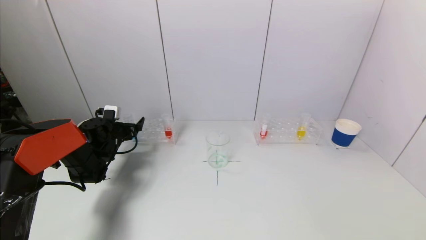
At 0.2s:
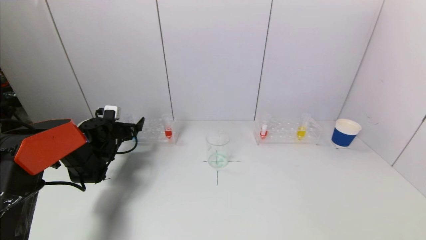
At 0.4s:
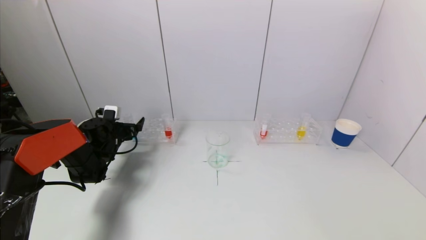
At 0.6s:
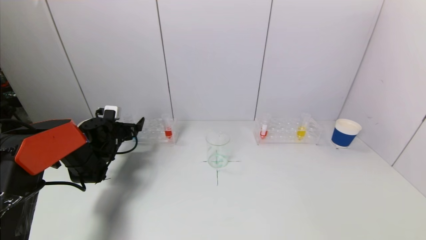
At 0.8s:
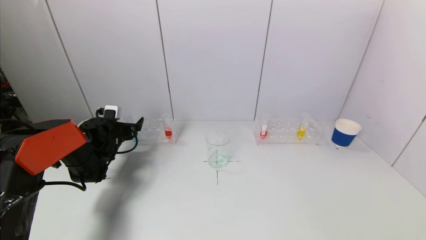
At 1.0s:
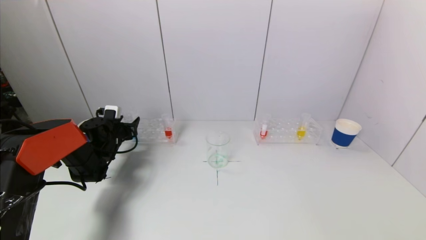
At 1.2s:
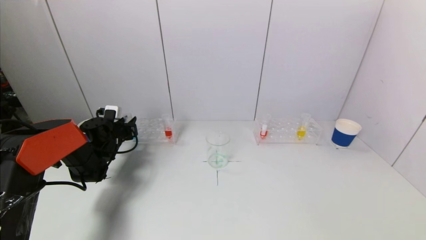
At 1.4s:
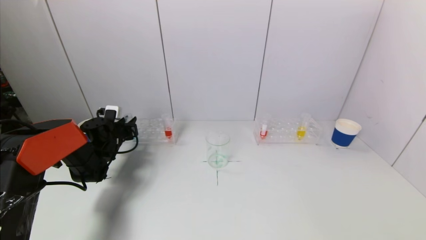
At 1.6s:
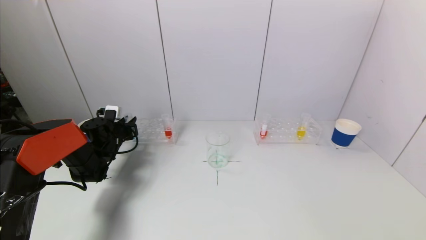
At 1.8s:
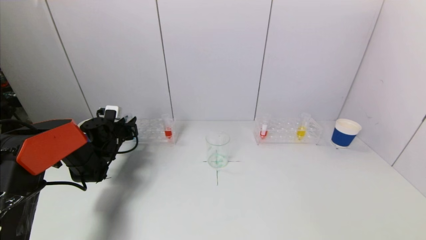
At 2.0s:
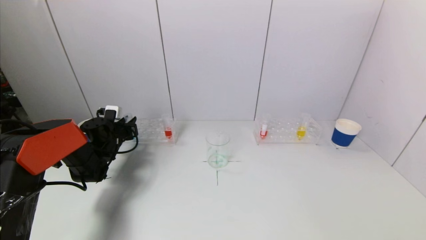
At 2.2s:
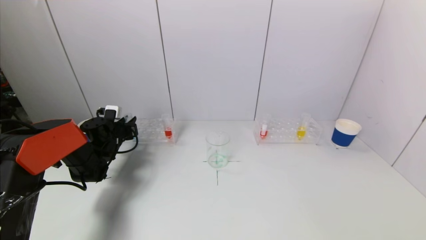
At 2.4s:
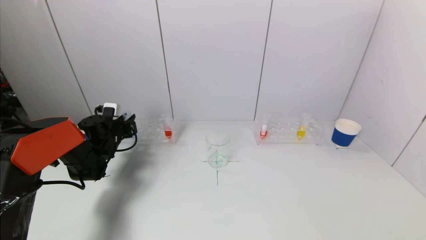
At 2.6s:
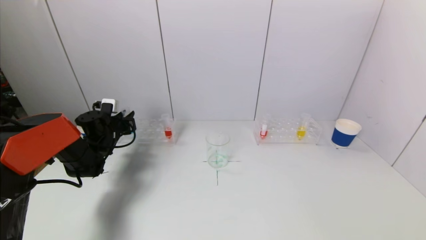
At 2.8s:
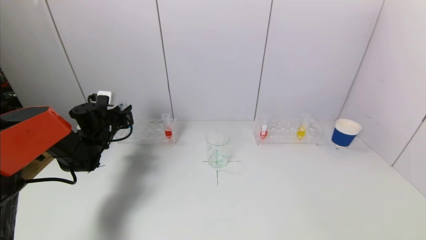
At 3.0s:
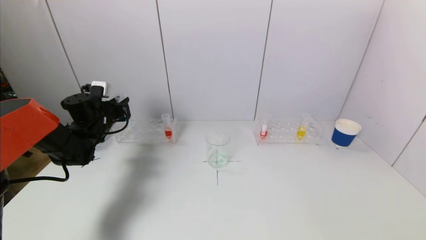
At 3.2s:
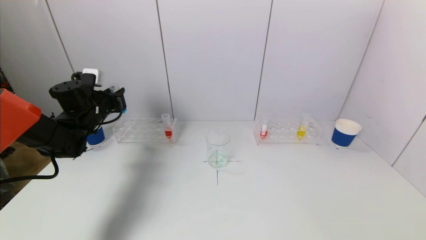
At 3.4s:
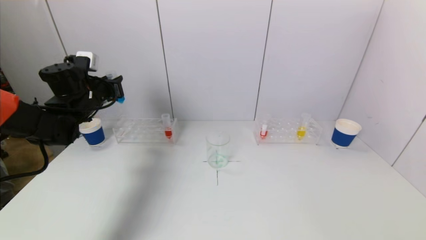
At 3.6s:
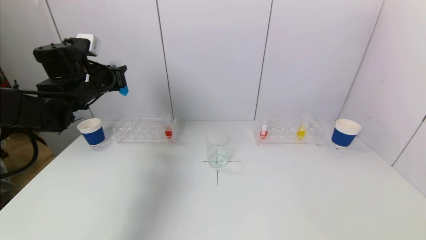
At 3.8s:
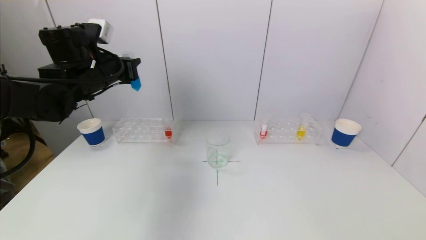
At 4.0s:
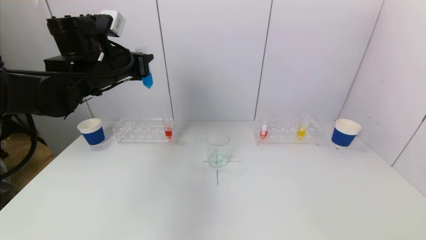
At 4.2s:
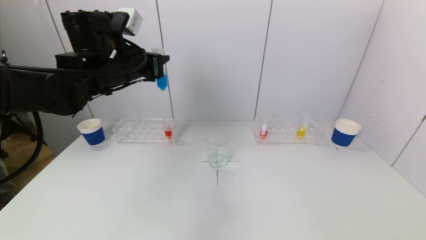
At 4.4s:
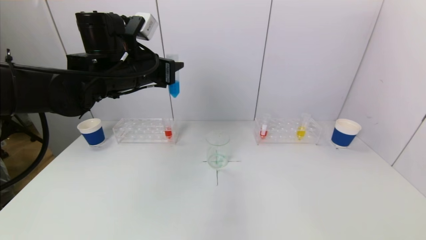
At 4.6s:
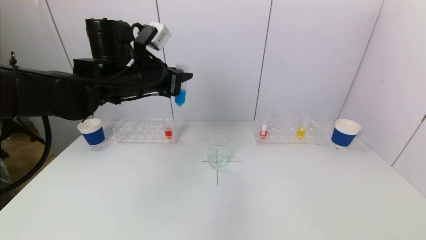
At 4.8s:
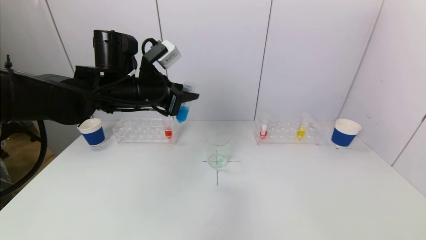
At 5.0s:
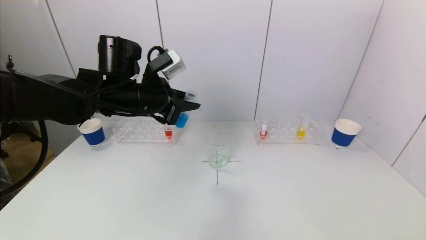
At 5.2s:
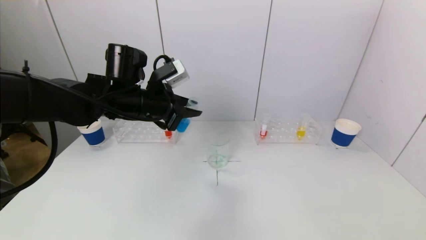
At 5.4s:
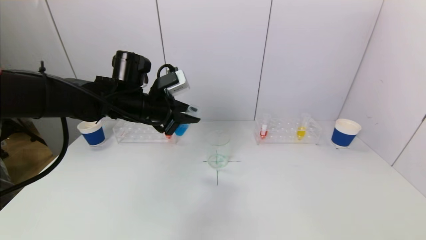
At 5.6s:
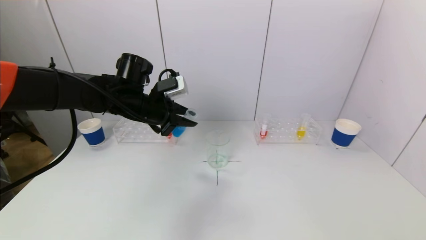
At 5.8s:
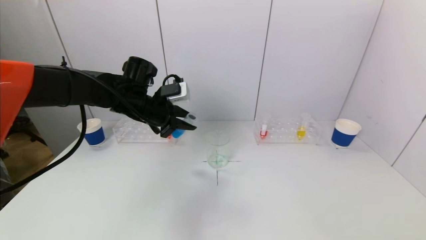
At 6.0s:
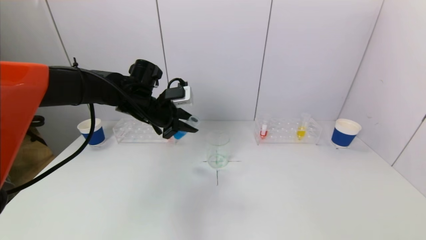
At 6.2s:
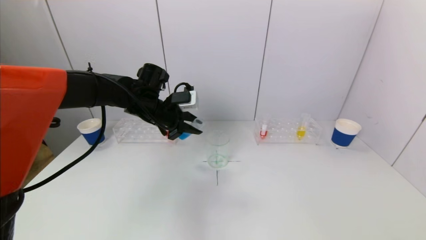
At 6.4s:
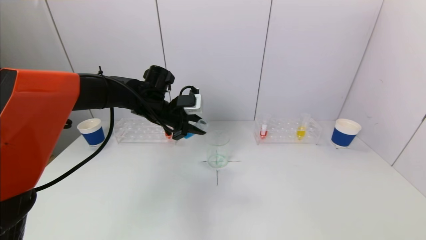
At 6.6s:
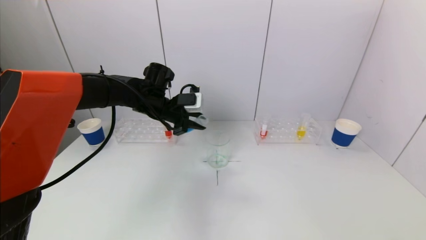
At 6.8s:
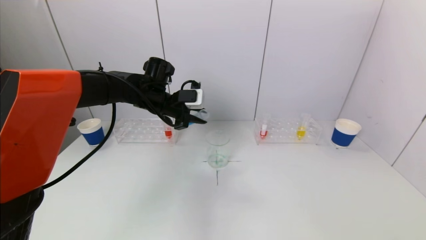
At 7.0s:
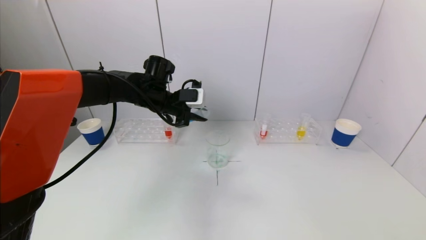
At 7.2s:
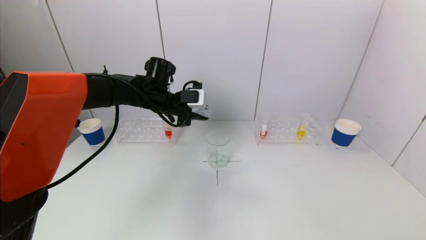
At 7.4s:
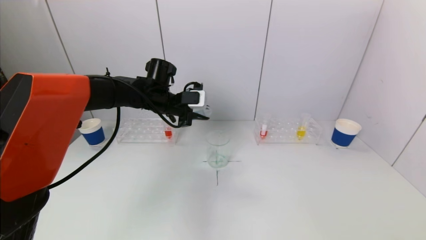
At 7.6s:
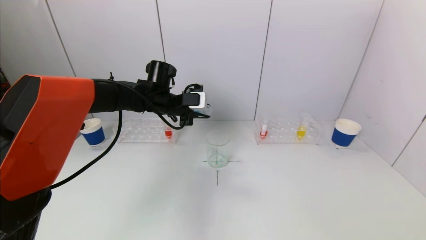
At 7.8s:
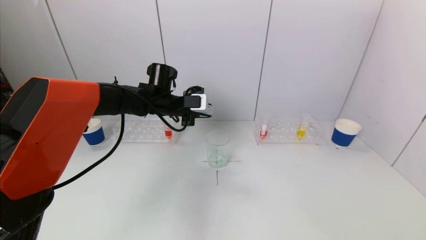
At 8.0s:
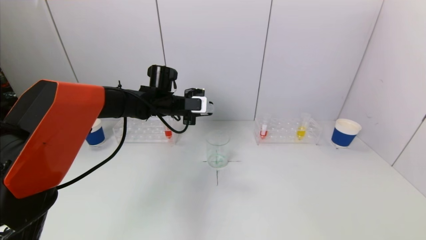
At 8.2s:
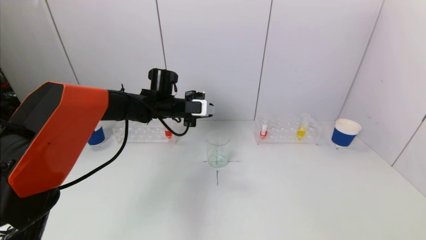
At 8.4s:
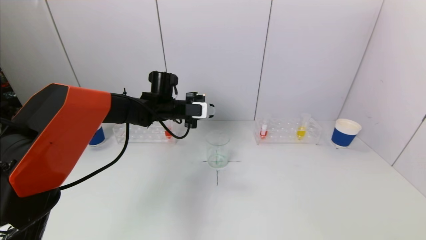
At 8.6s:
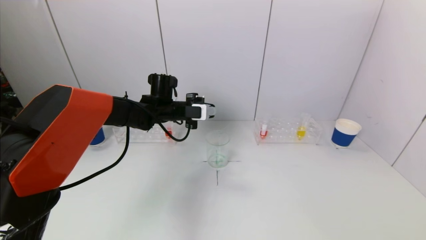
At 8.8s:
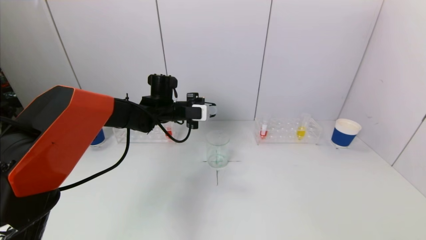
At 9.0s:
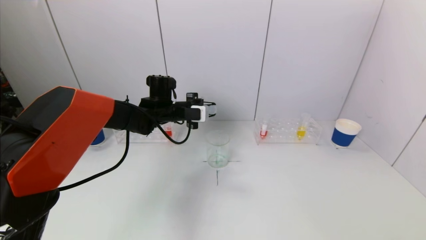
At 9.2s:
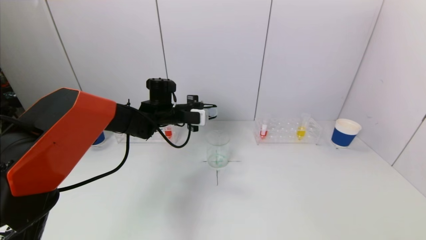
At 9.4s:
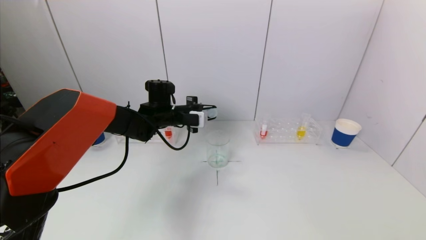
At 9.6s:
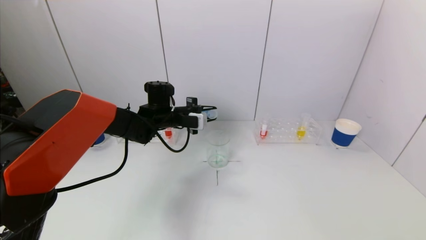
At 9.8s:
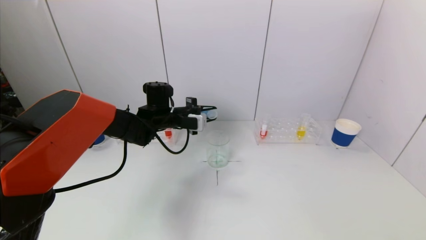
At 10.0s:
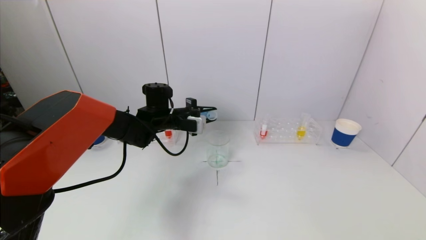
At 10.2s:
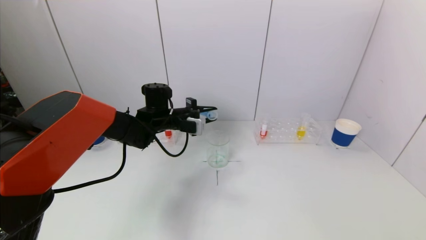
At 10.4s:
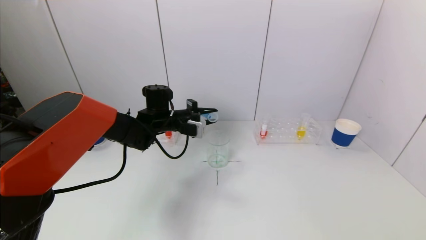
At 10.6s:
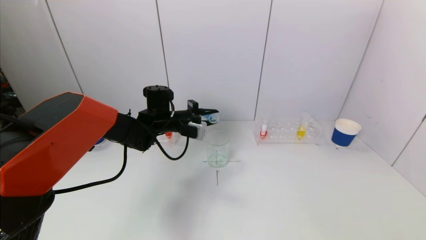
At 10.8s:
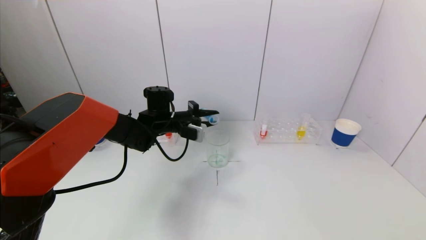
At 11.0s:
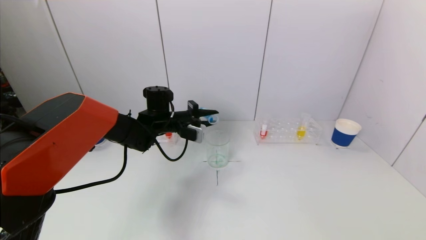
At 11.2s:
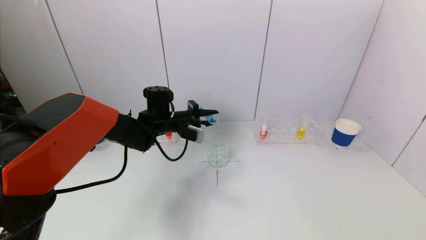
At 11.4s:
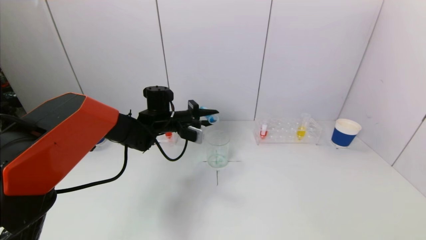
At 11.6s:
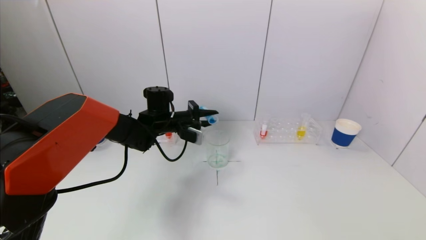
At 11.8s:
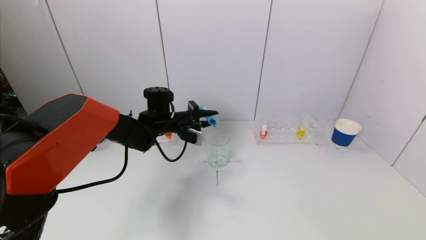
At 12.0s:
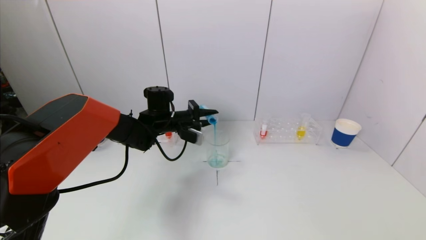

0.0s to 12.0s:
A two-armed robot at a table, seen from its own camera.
Task of the whole recording: pick up a test tube with pigment on left test tube rack and a test tube with pigment on right test tube rack by grippers and pour them into the beaker.
0.0s to 1.6s: The left gripper closes up.
1.6s to 3.0s: The left gripper goes some 10 cm upward.
3.0s to 4.4s: The left gripper heads upward, to the right and backward, covering about 25 cm.
4.4s to 6.0s: The left gripper is displaced downward by some 10 cm.
6.0s to 7.6s: The left gripper ends up approximately 5 cm from where it was.
7.6s to 9.0s: There are only small adjustments of the grippers.
9.0s to 10.4s: The grippers make only small movements.
10.4s to 12.0s: The grippers move only a little.

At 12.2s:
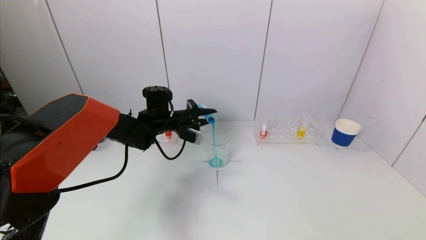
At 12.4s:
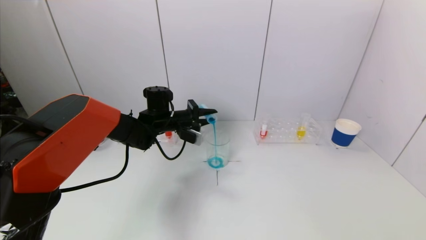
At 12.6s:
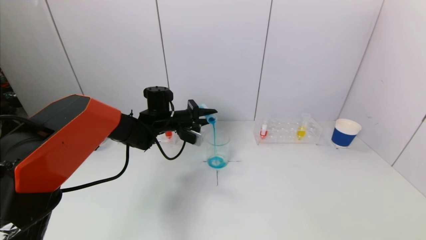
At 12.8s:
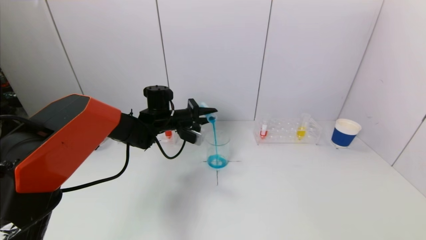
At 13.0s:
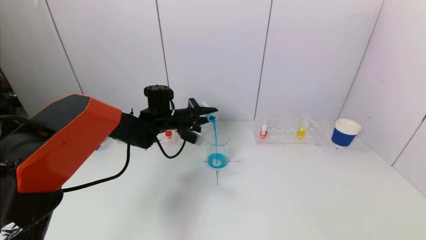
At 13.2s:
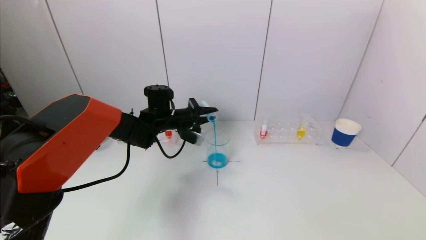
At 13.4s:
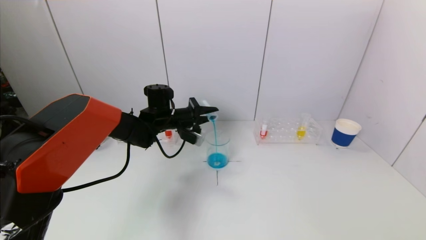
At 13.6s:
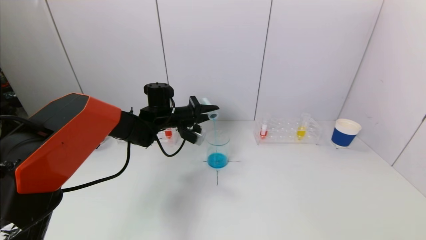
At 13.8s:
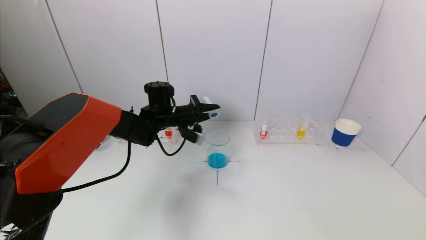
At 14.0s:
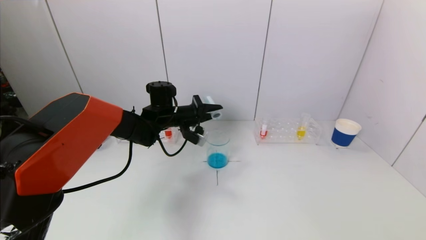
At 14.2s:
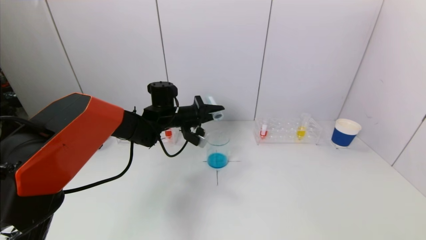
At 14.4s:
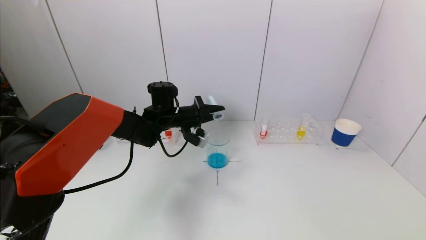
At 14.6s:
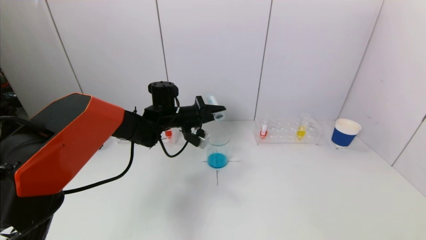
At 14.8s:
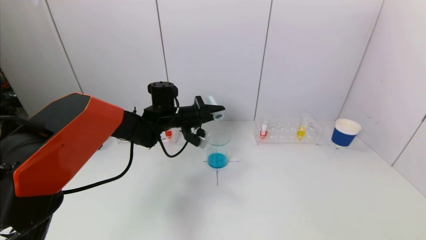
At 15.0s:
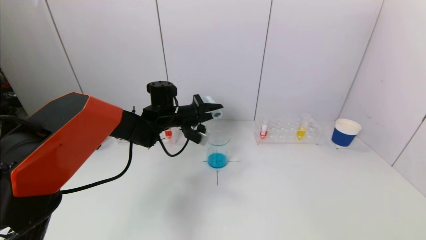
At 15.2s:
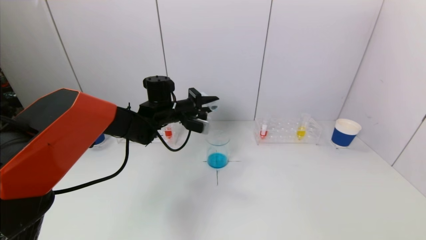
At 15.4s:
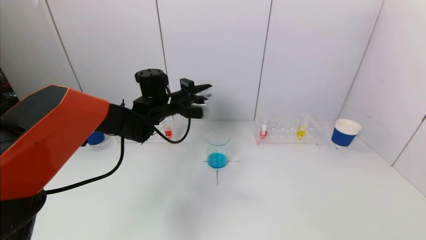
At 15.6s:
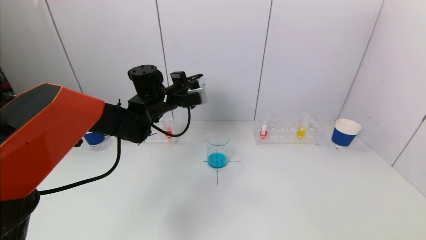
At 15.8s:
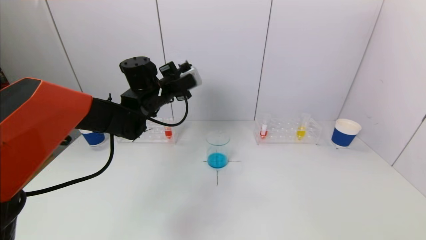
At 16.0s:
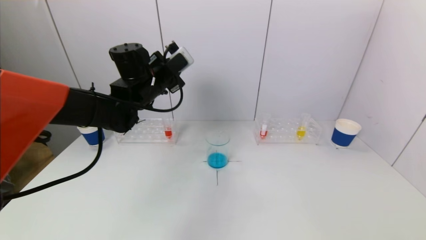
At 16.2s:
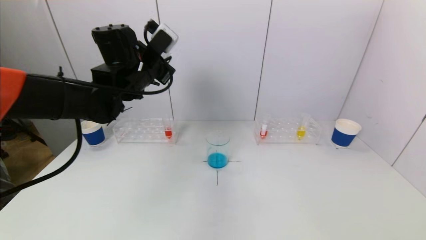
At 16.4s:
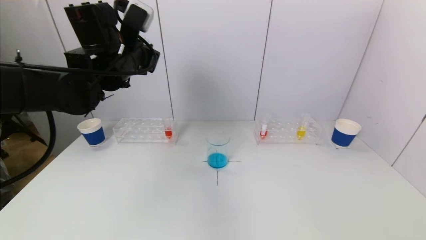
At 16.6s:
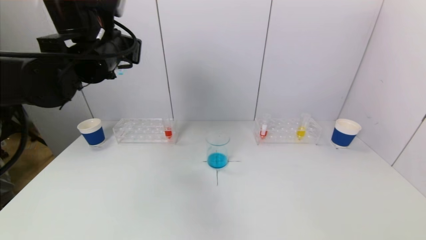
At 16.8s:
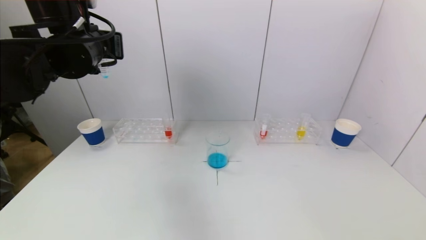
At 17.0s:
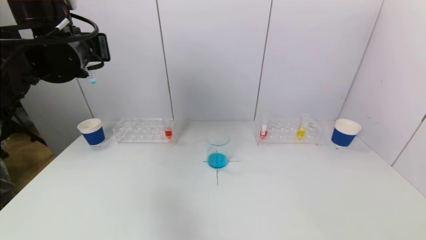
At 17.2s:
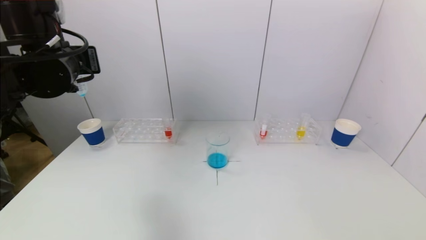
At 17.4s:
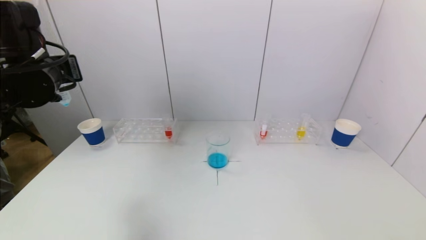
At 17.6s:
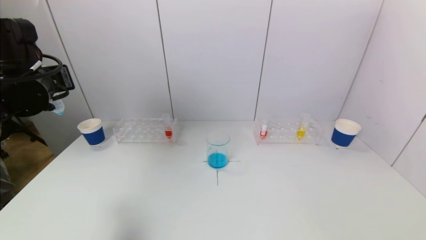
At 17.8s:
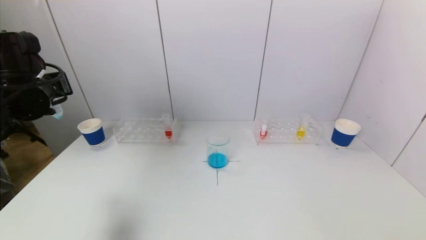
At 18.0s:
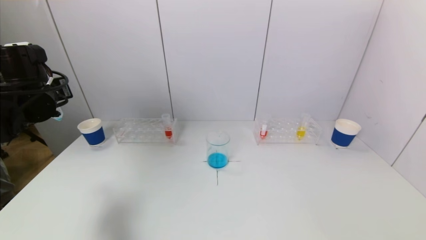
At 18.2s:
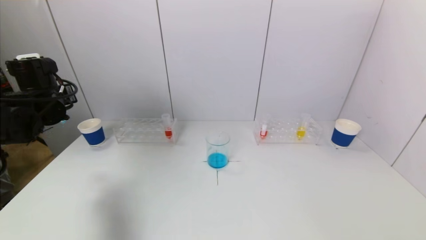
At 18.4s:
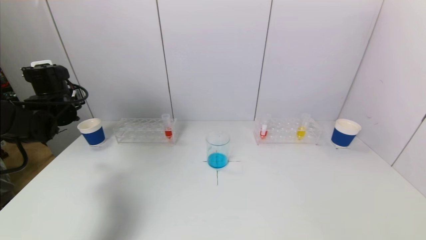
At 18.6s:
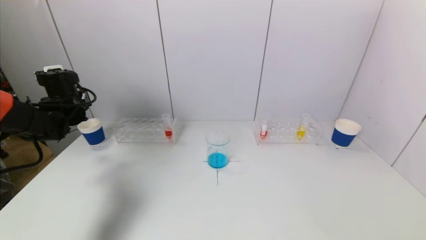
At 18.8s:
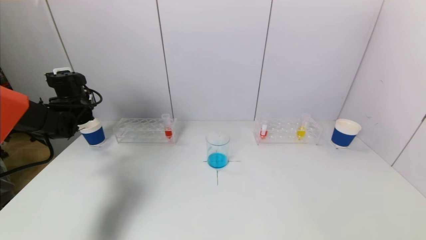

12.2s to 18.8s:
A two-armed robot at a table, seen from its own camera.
Task of the whole recording: pick up a test tube with pigment on left test tube rack and a test tube with pigment on right test tube rack by grippers and pour them into the beaker.
Step, 12.2s to 14.6s: Pour the blue reagent into the graduated cylinder with the left gripper.
12.2s to 13.8s: The grippers make only small movements.
15.4s to 17.2s: The left gripper heads backward, upward and to the left, covering some 25 cm.
17.2s to 18.8s: The left gripper moves forward, downward and to the left, about 25 cm.
